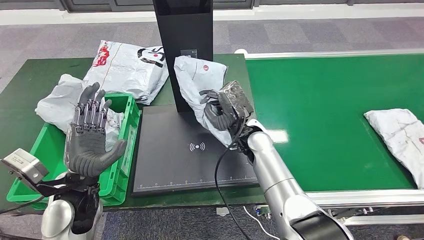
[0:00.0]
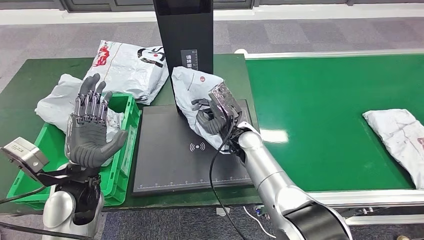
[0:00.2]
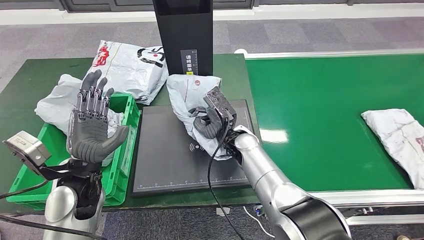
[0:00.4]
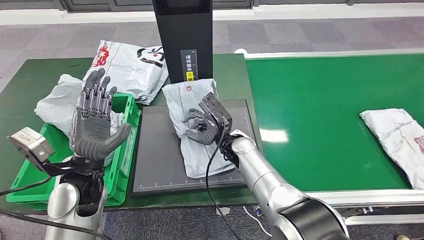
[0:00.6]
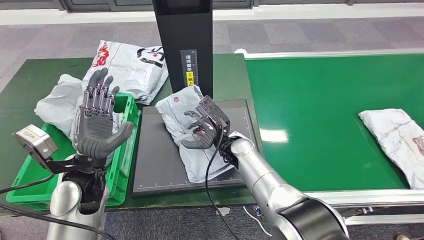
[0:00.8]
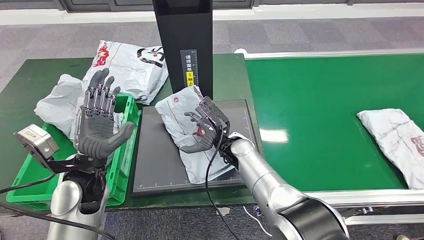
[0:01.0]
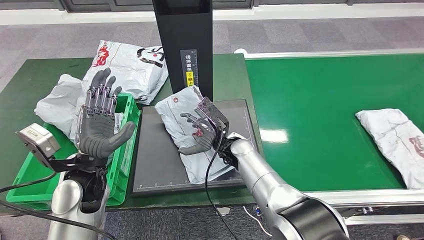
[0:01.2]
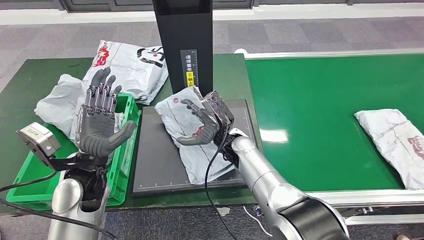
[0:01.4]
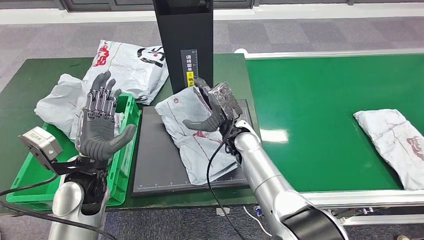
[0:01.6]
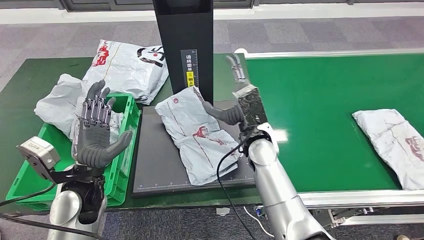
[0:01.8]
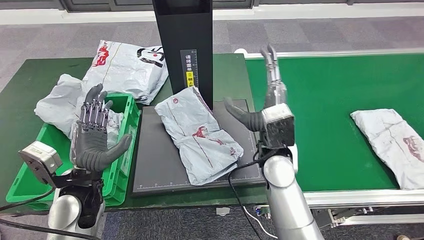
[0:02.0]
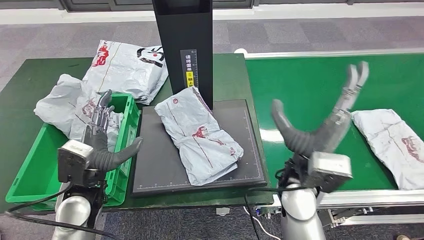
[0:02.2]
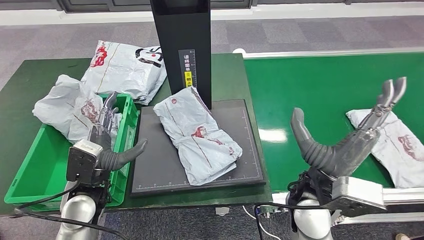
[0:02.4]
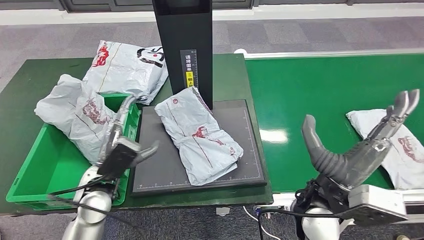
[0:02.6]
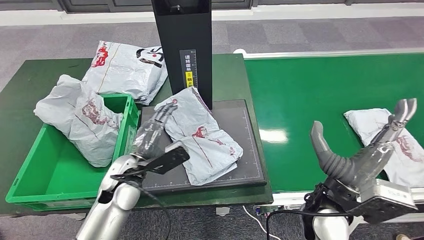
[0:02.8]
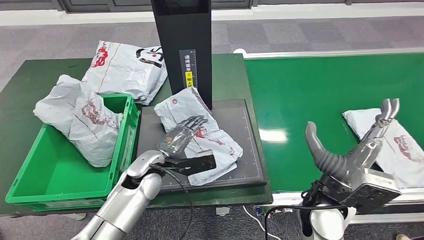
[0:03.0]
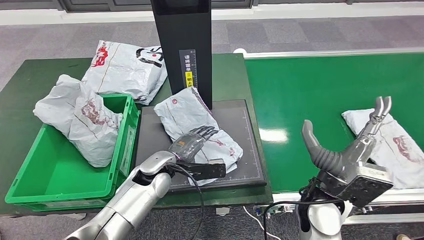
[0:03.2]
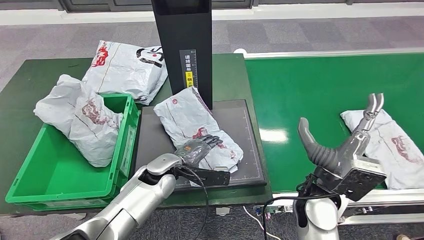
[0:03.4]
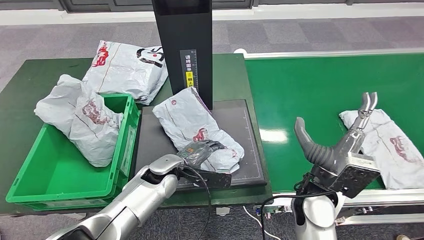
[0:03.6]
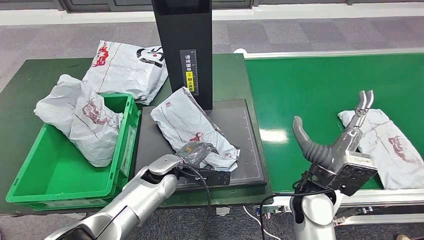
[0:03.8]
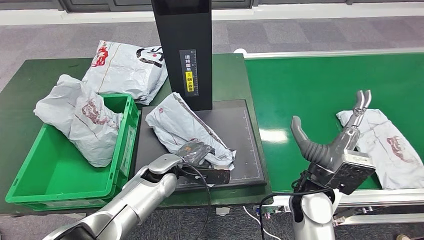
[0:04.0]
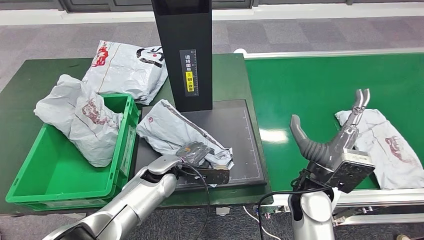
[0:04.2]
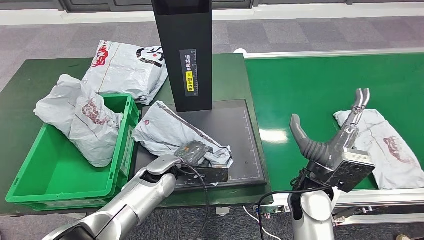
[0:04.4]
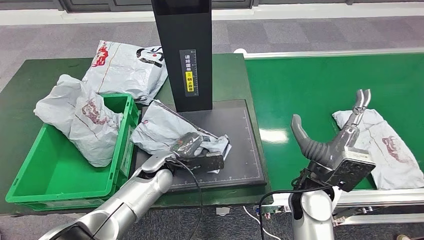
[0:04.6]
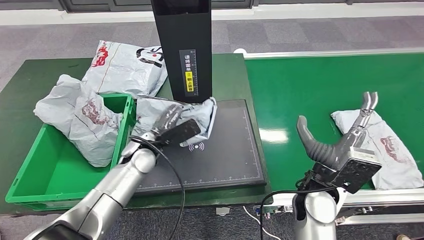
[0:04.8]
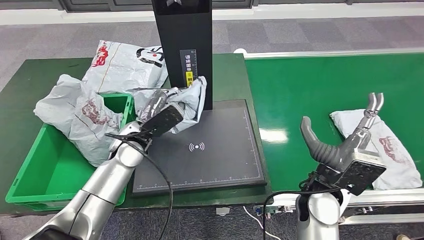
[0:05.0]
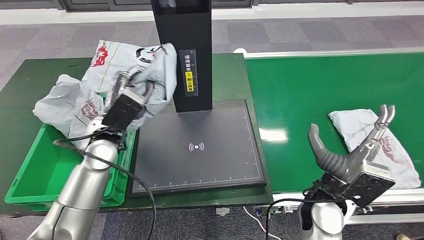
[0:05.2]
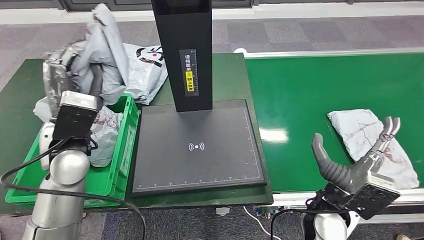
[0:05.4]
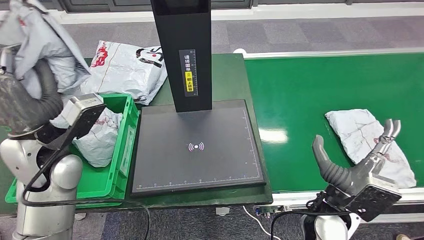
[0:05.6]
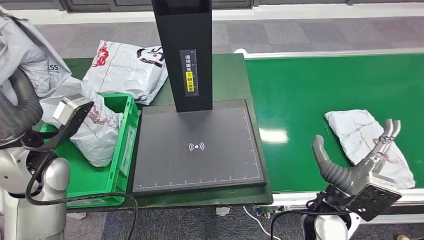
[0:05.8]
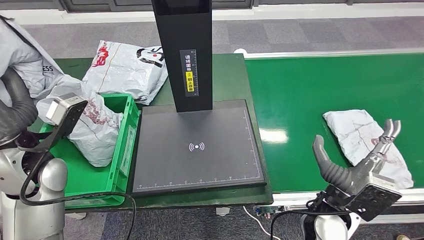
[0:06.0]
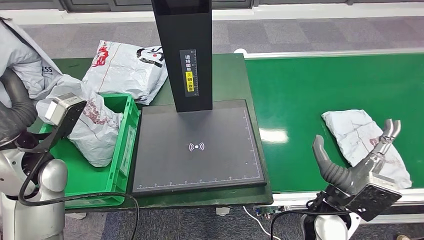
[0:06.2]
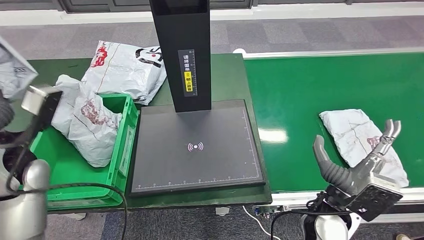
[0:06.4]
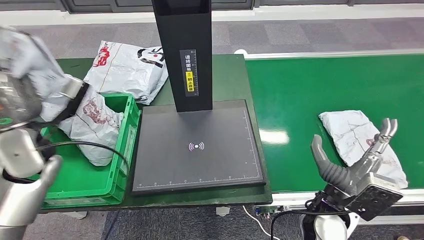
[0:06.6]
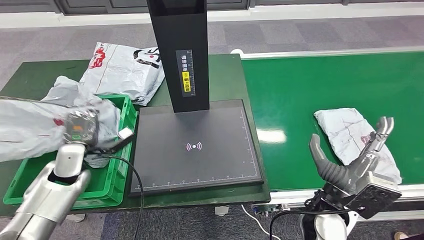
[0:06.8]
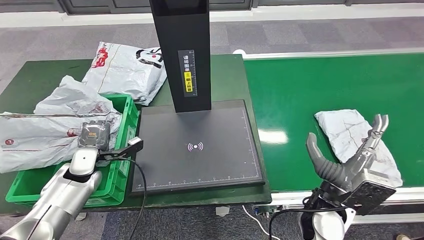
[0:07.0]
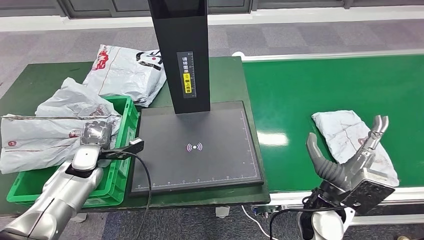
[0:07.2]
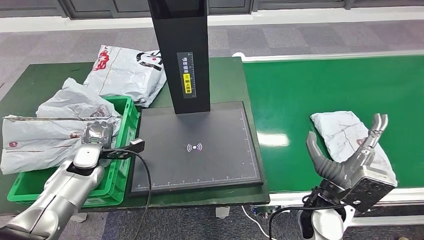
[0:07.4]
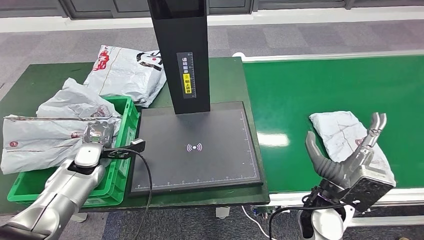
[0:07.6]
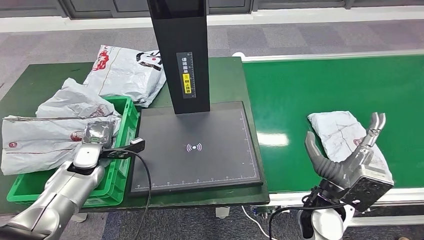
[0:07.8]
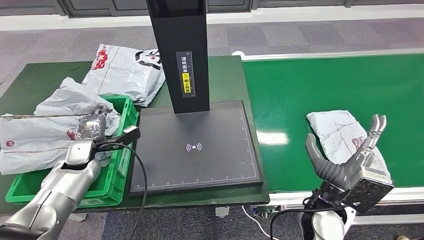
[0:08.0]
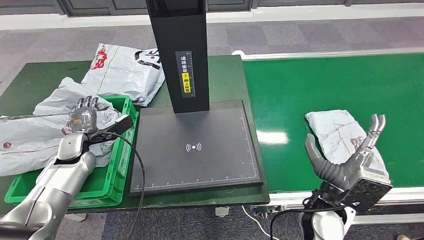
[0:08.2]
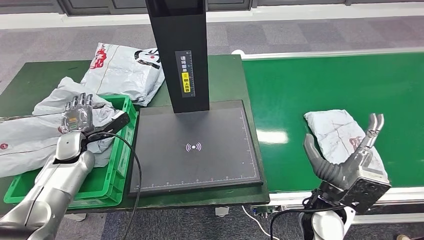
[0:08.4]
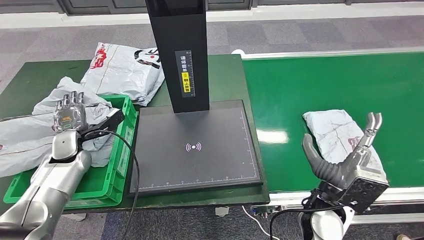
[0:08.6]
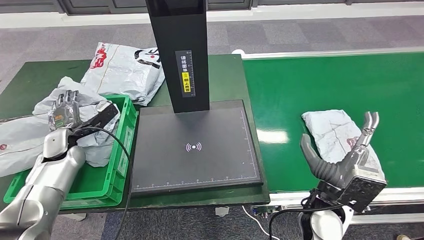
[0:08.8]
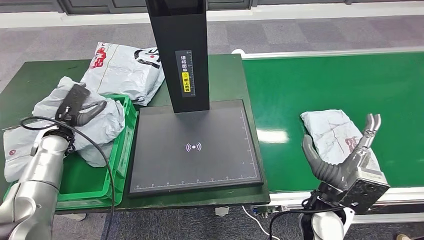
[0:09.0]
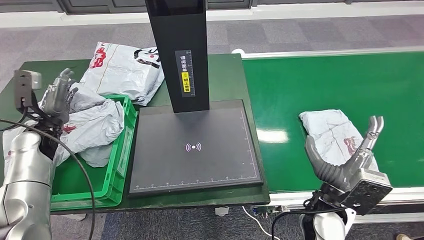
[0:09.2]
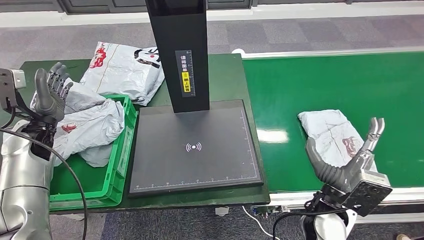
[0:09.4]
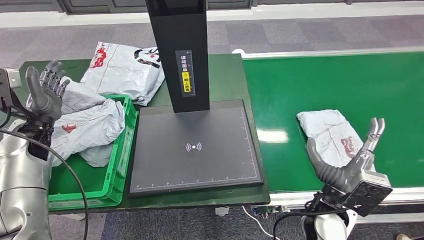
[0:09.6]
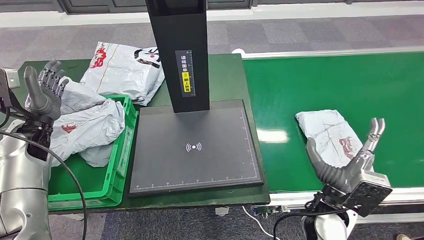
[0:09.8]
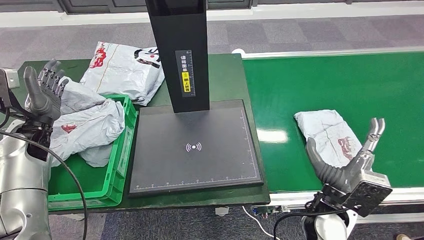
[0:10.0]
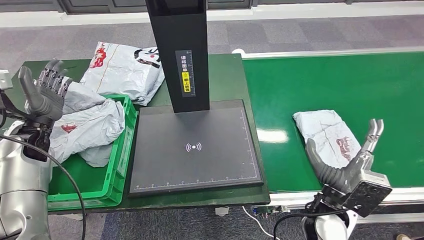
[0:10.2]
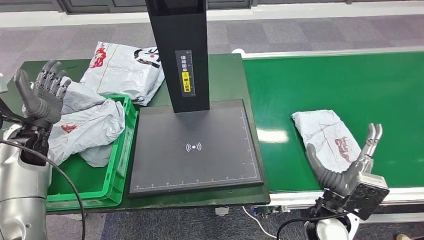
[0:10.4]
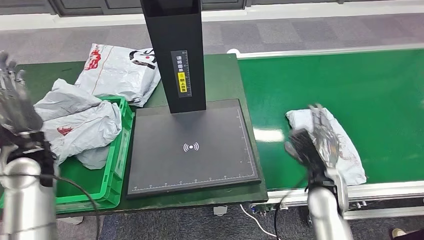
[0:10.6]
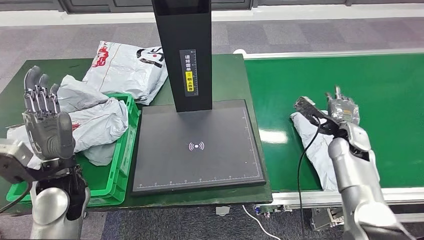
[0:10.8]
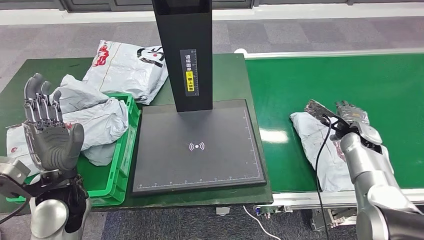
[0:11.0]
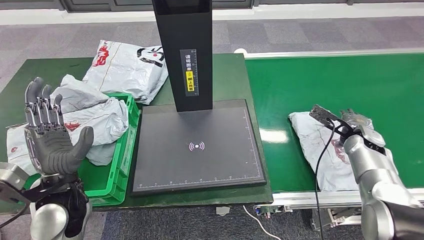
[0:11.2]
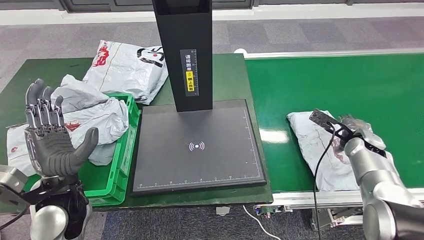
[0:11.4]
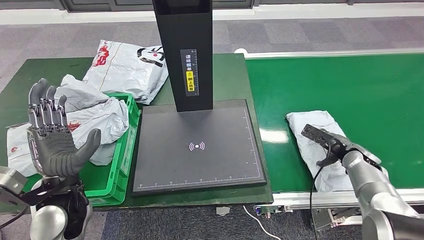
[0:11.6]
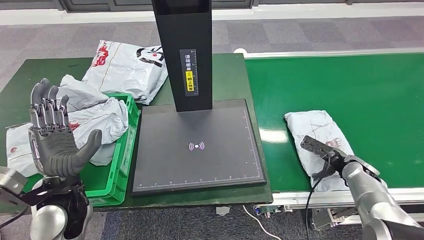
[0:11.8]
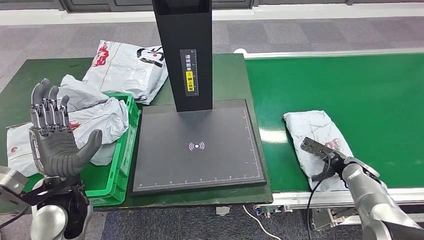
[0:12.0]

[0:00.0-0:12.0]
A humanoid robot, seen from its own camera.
Step, 0:00.0 to 0:01.6: Place the parcel onto the inbound machine.
Step, 0:02.0 to 0:05.6: Pick up the parcel from the inbound machine.
Step, 0:05.8 to 0:08.4: Place the parcel into the delivery box.
0:09.0 to 0:10.4: The left hand is displaced upward by approximately 5 cm.

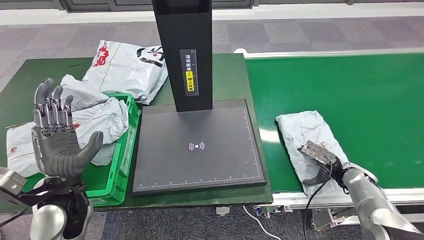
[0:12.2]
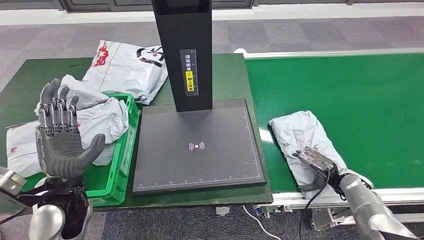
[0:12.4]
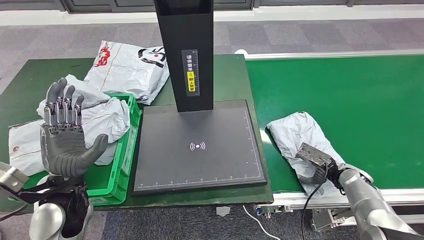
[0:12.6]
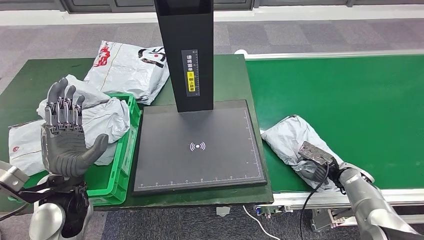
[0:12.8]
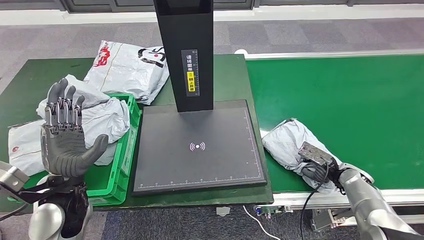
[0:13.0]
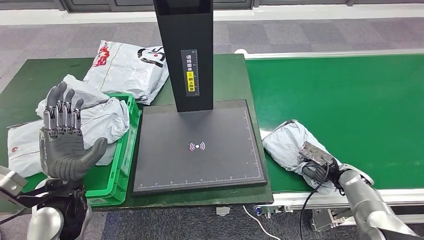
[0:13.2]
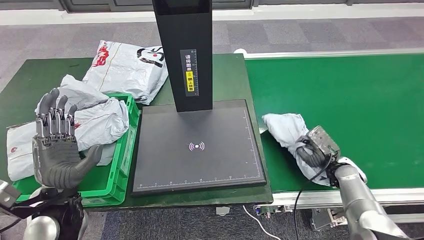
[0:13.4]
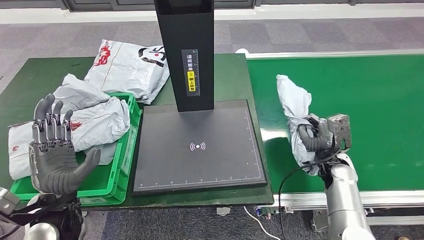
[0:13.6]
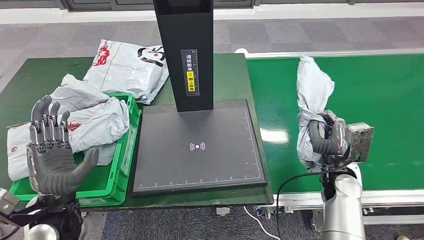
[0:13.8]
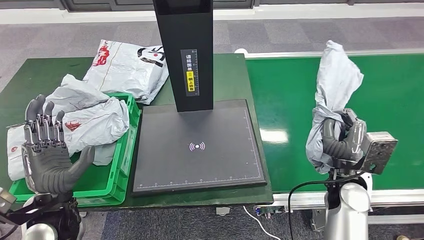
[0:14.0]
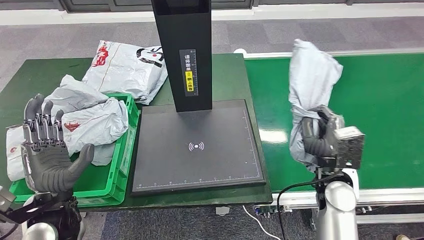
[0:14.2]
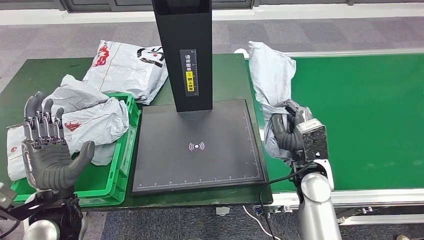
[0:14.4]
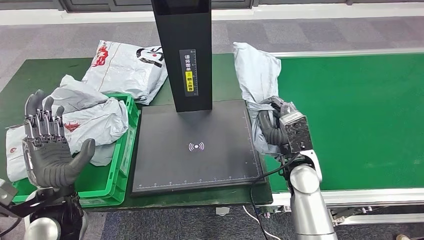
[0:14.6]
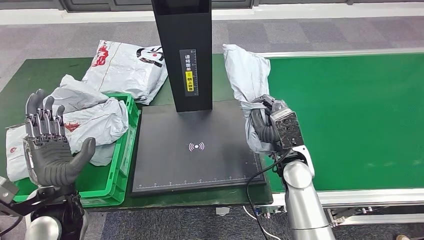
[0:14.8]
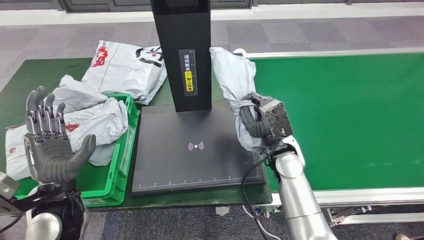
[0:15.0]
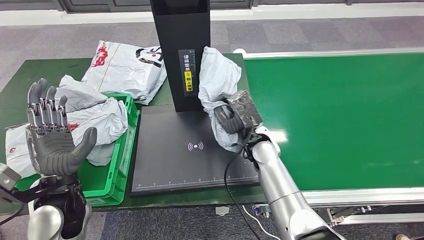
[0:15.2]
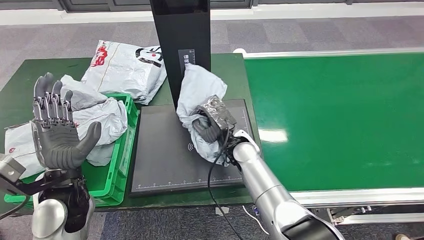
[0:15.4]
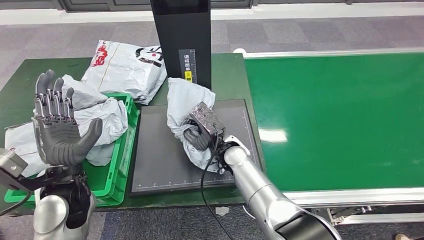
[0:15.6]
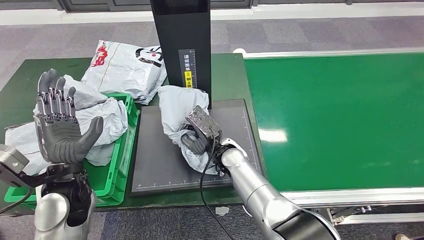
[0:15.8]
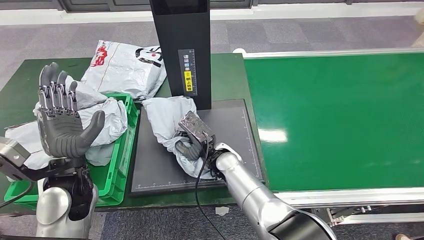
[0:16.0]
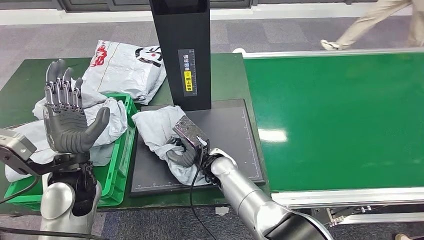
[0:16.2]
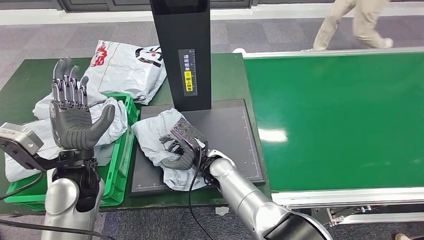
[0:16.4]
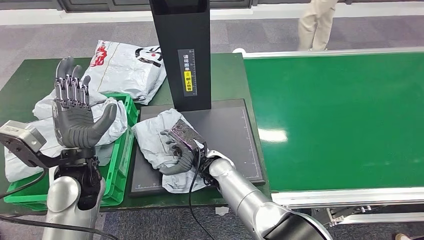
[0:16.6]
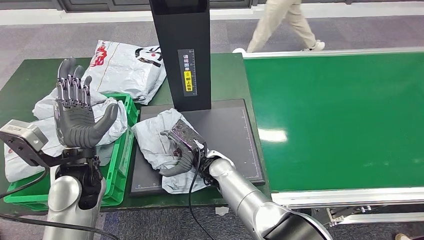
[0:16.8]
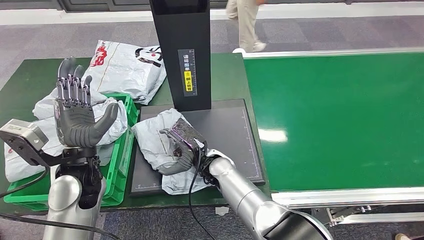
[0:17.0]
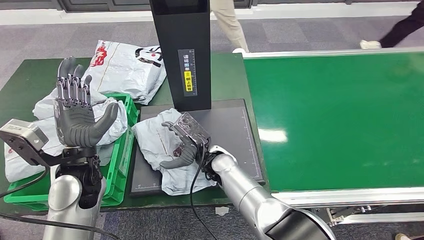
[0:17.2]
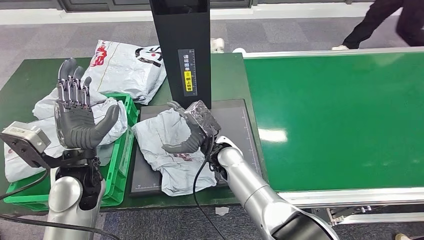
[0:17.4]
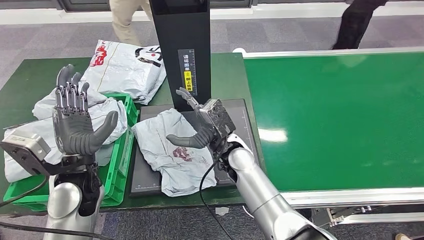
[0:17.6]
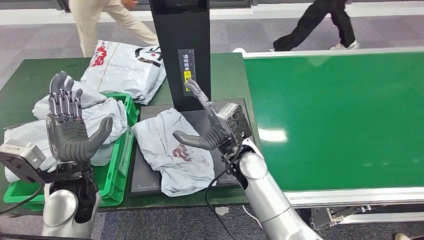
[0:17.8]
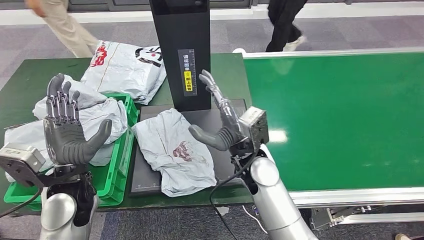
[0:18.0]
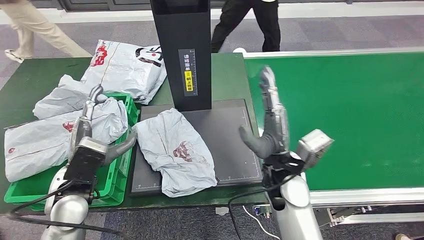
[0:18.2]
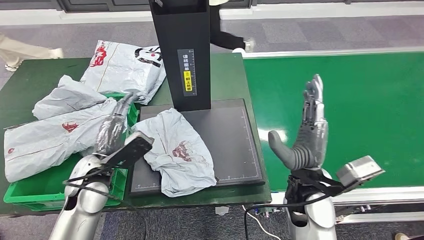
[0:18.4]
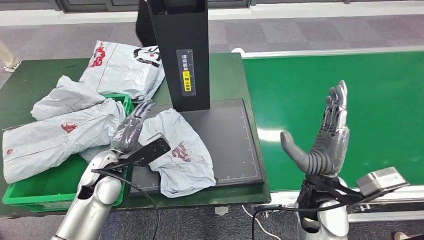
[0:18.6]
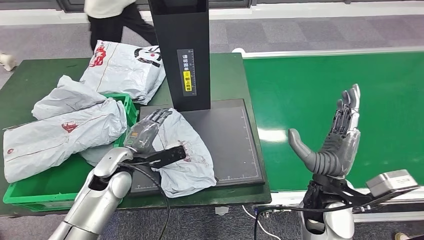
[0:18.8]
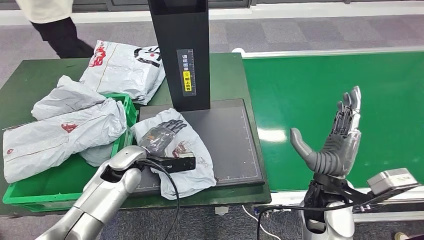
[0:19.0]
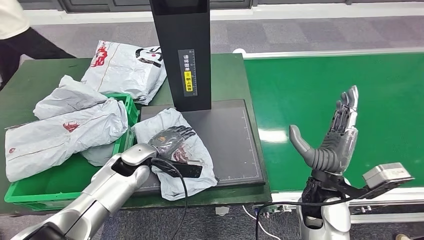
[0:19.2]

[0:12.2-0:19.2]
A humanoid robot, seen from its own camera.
Step, 0:12.2 to 0:14.4: Pick up the parcel from the conveyor belt.
Step, 0:14.6 to 0:17.4: Place the parcel onto the inbound machine.
